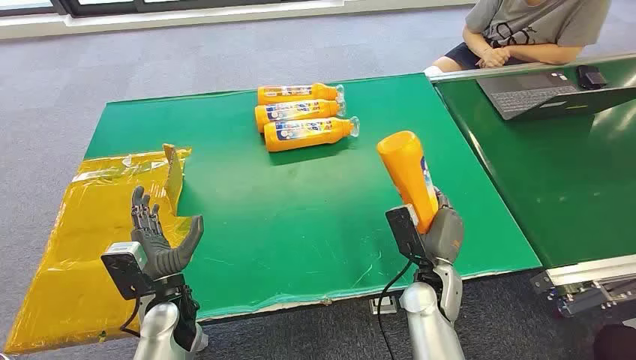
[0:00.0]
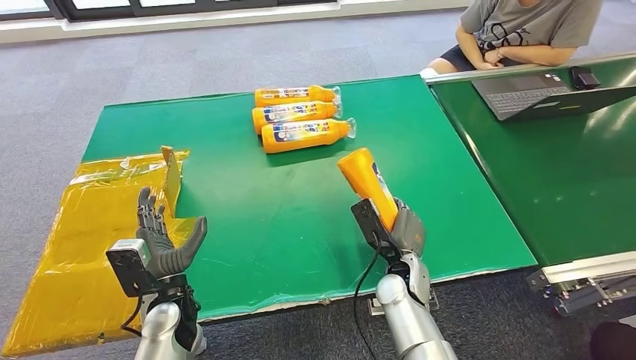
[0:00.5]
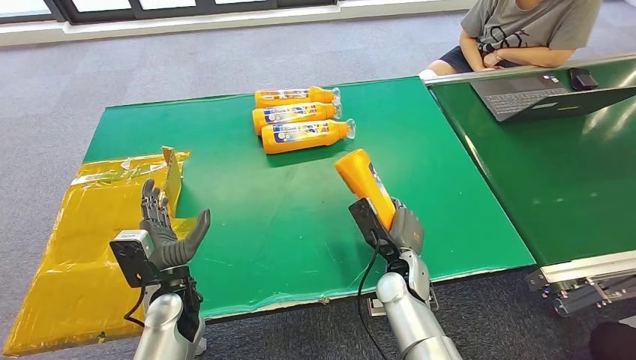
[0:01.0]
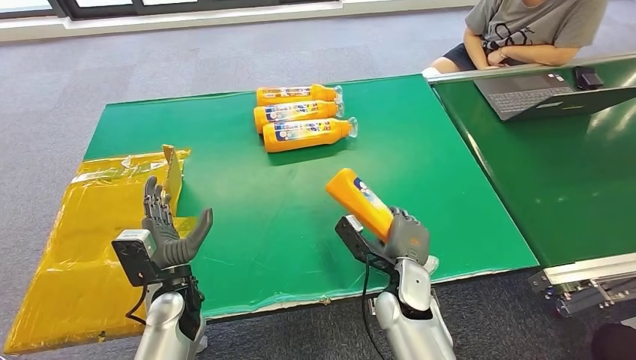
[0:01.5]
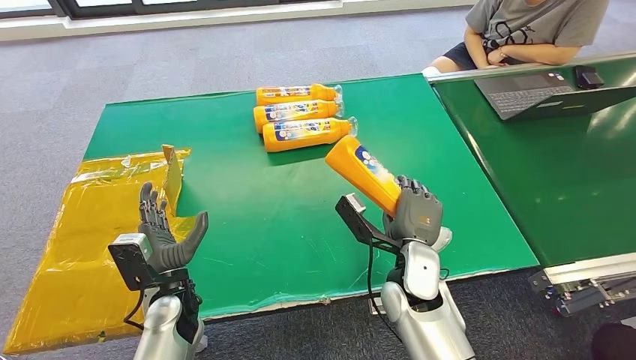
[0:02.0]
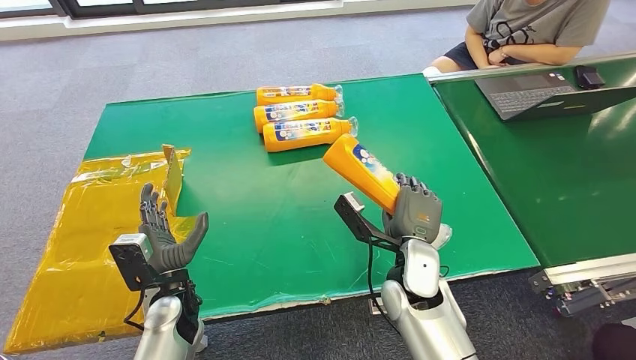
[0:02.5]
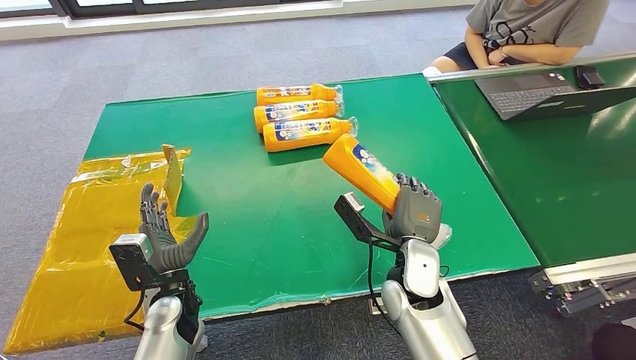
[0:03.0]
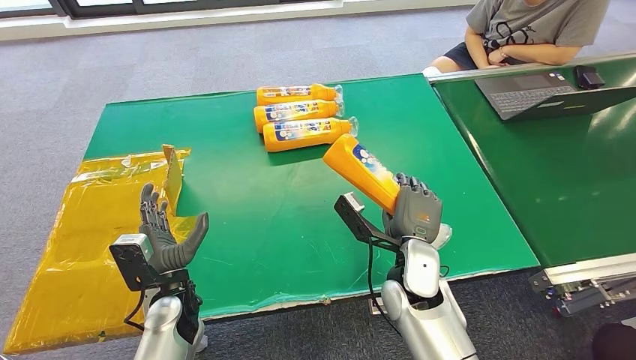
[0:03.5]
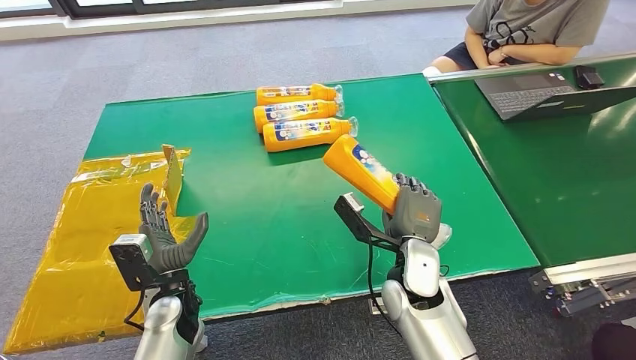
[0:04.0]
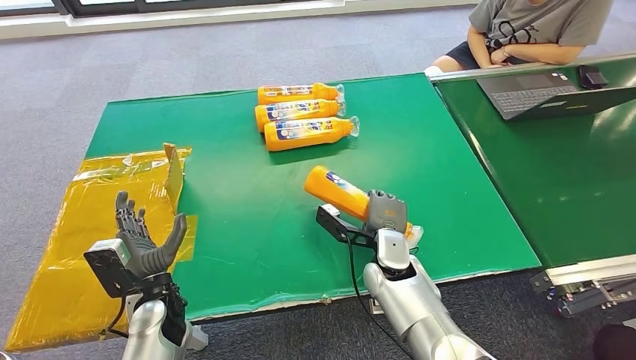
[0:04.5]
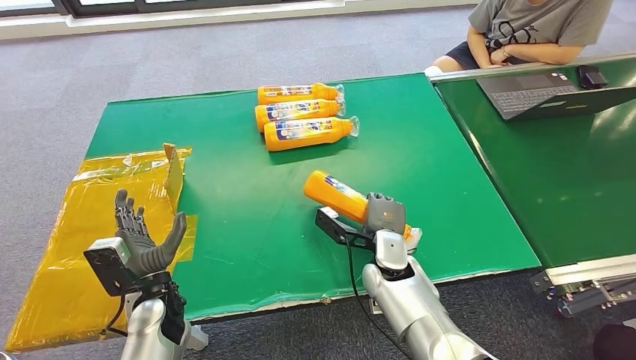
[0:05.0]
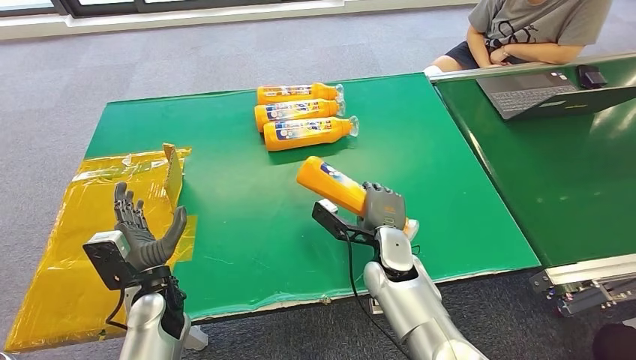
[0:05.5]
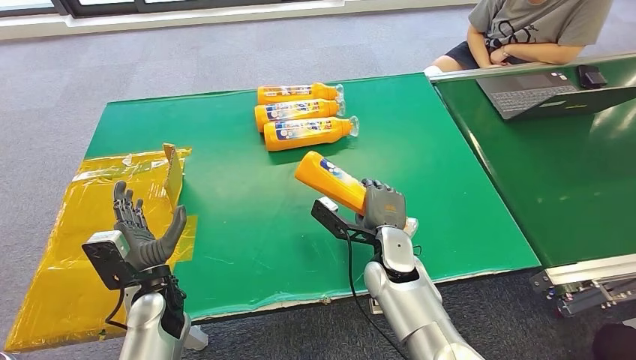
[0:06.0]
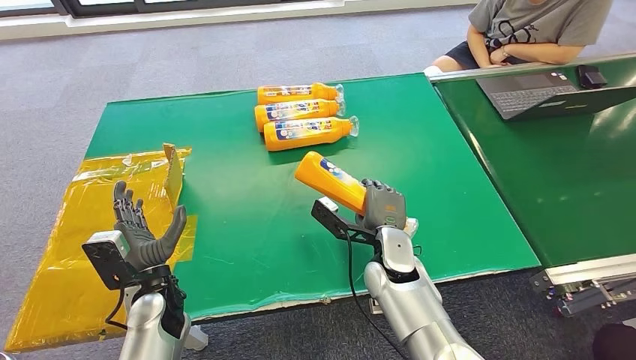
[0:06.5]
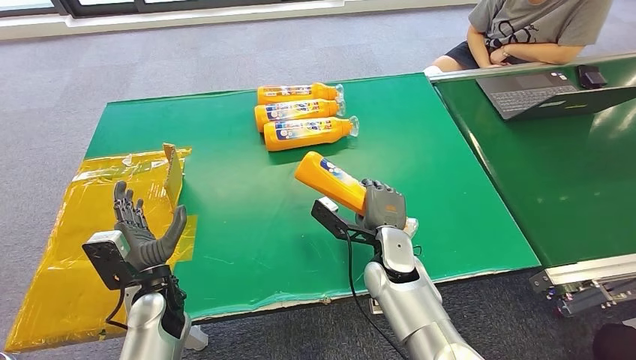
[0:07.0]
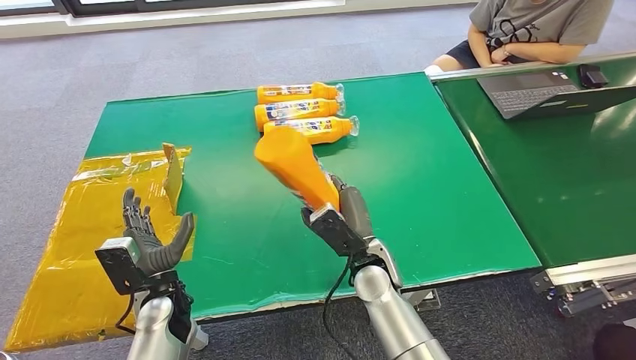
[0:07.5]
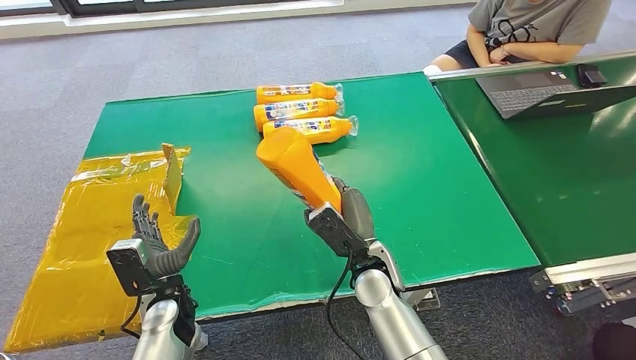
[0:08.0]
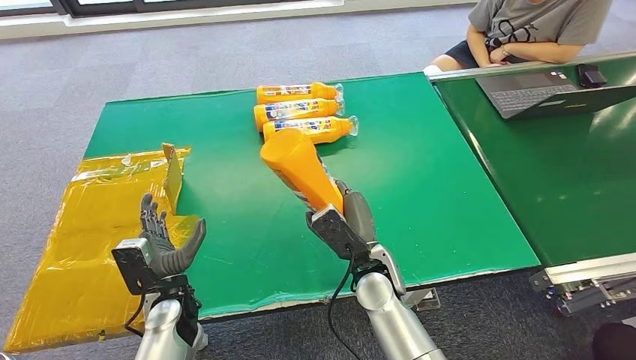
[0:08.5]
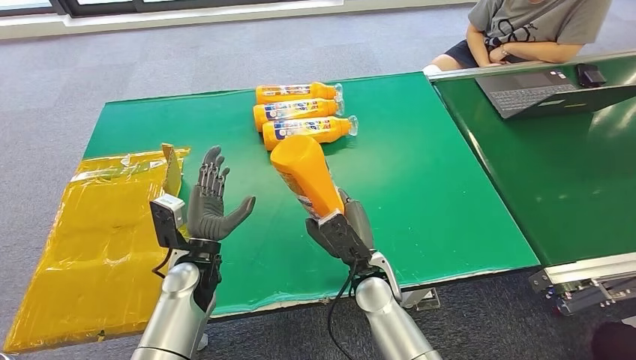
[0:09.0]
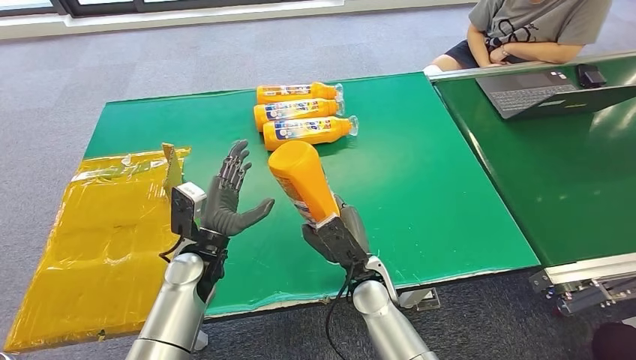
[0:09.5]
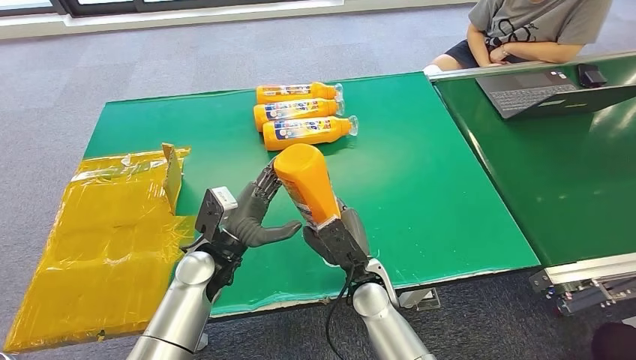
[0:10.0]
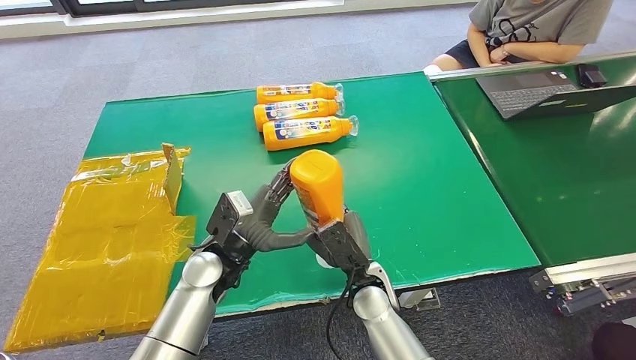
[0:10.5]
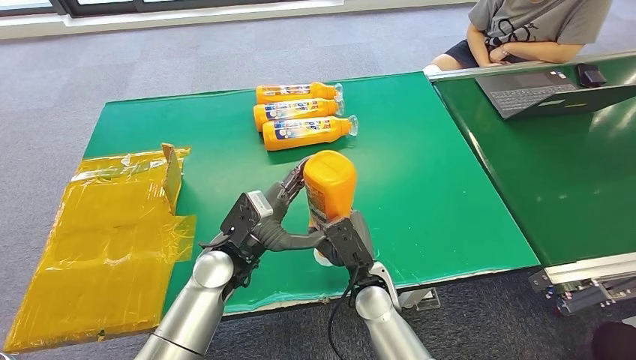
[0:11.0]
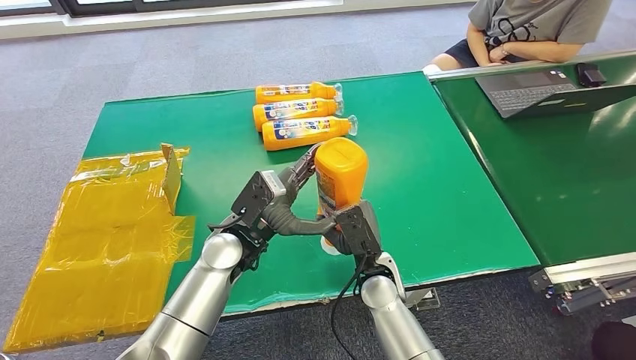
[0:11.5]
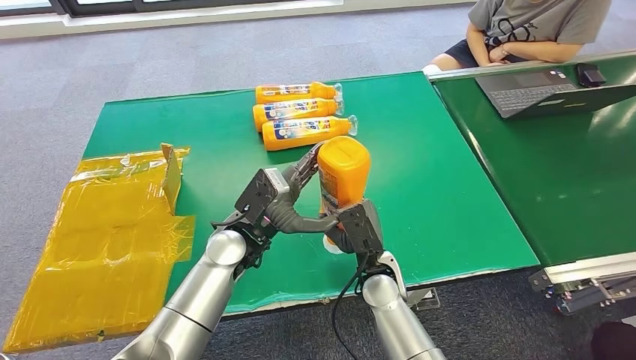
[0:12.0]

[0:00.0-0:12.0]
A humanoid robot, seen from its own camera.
Step, 0:00.0 to 0:02.0: Pick up the bottle from the table.
0:02.0 to 0:04.0: Neither hand changes place.
0:04.0 to 0:06.0: The right hand changes place by roughly 5 cm.
0:08.0 to 0:10.0: The left hand is displaced to the right, upward and forward by roughly 10 cm.
0:10.0 to 0:12.0: The left hand is displaced to the right by about 5 cm.

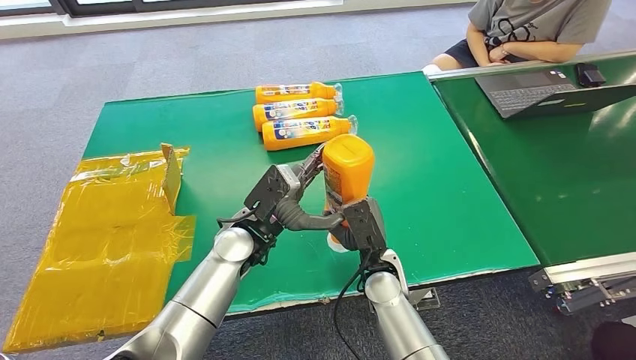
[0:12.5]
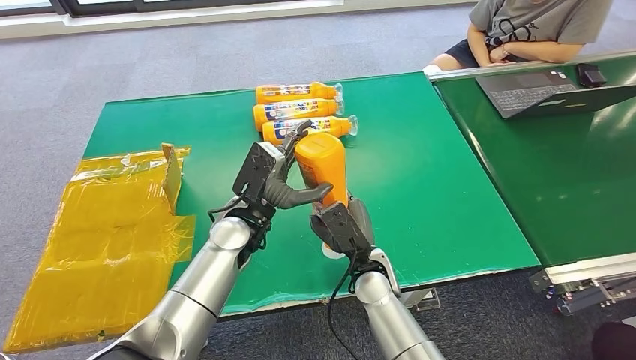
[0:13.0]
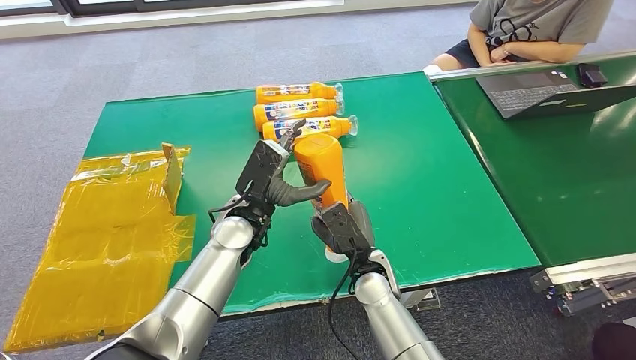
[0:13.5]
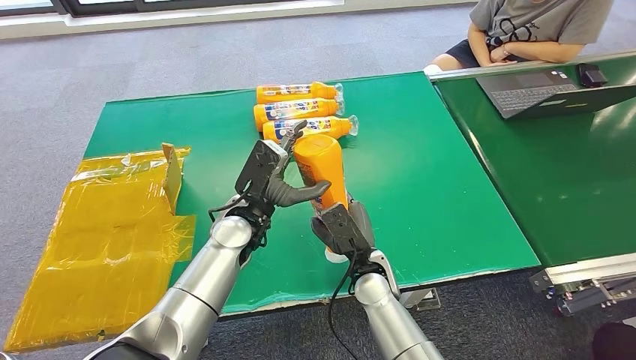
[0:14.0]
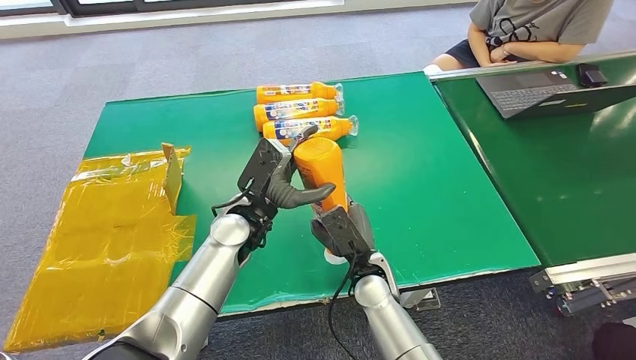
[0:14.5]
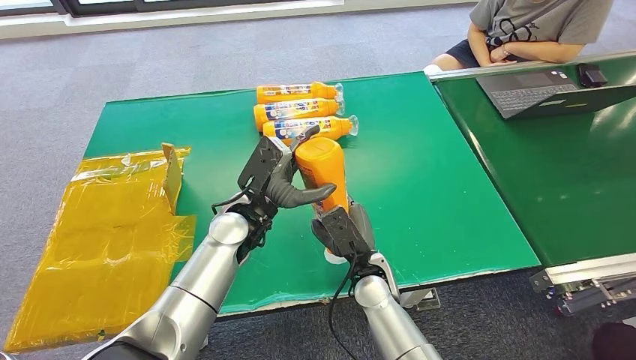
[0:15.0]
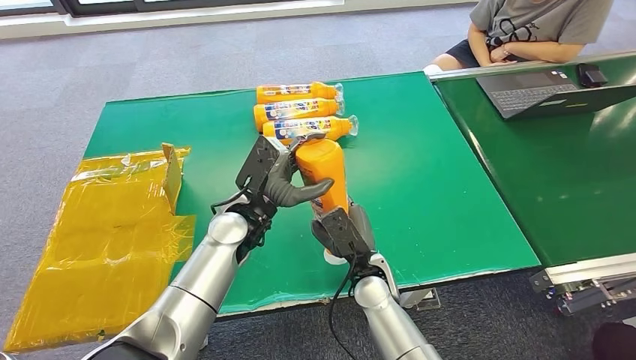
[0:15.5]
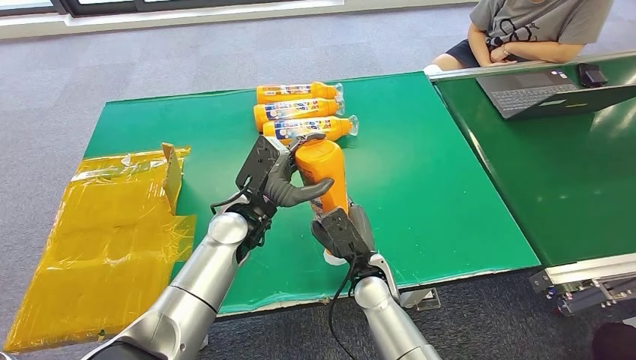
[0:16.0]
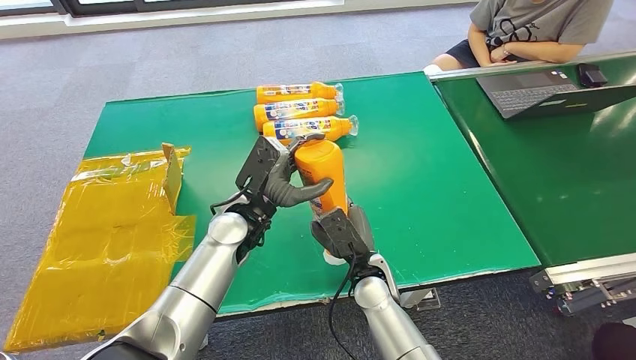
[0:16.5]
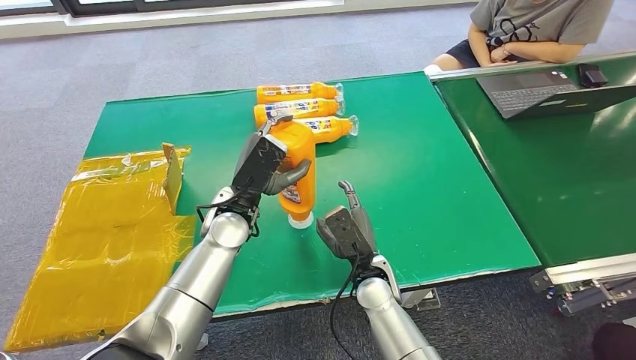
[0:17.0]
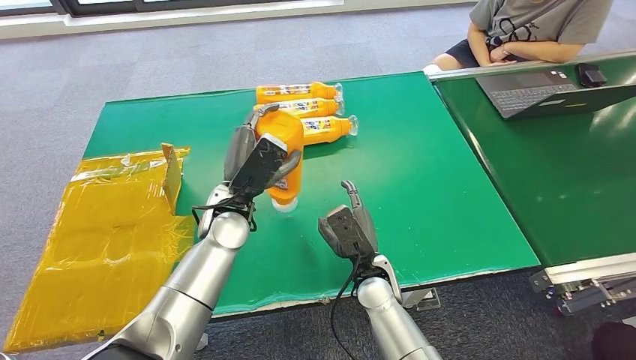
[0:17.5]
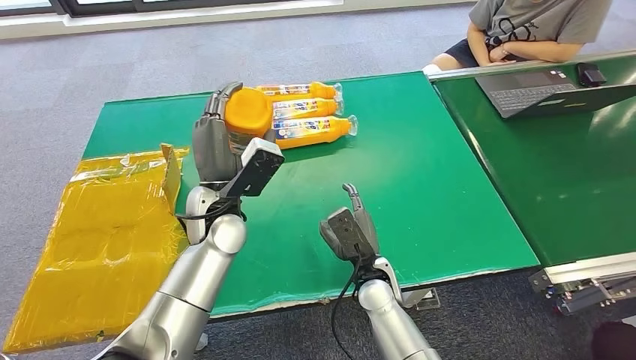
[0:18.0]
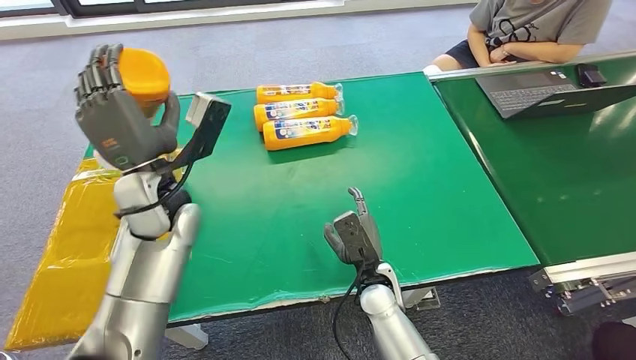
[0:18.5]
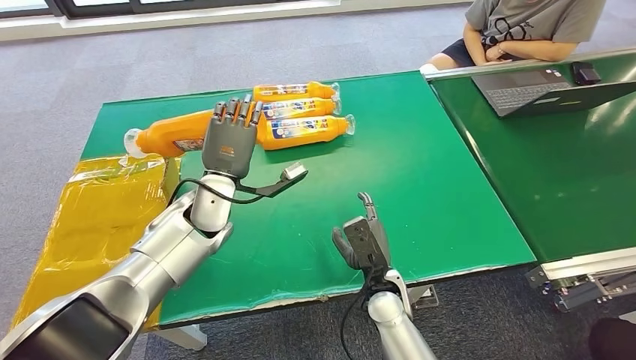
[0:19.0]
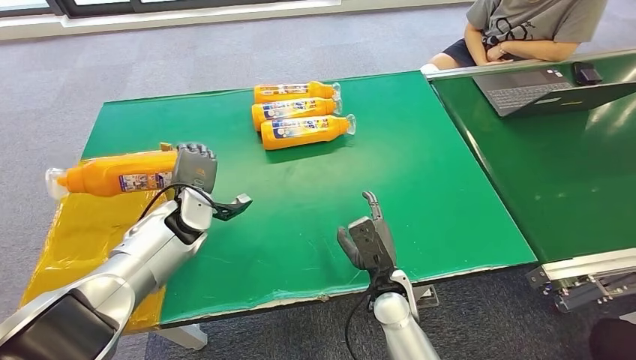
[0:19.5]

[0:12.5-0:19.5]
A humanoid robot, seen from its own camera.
Step, 0:12.5 to 0:19.5: Turn the bottle to the front side.
0:14.5 to 0:16.0: The two hands keep their place.
